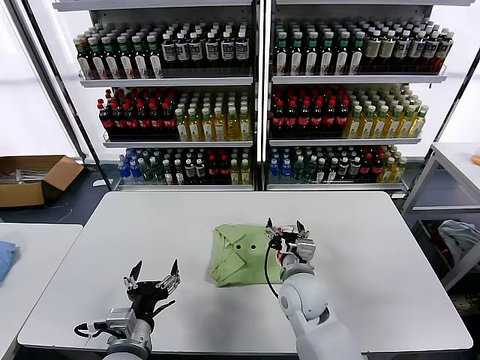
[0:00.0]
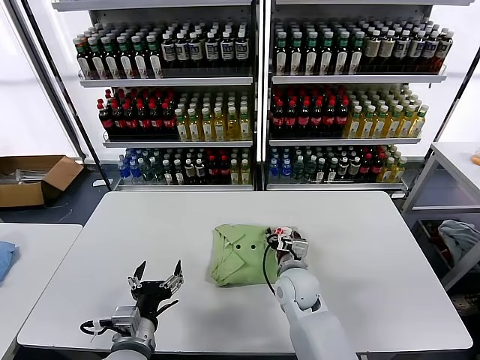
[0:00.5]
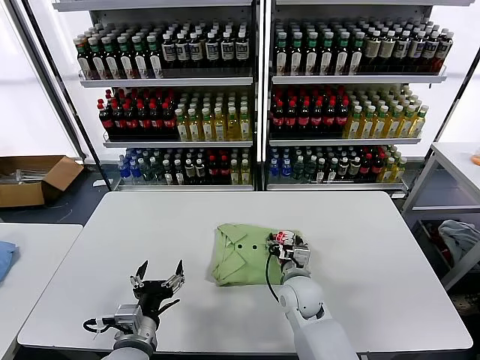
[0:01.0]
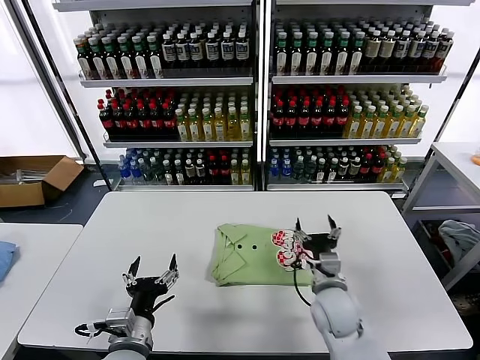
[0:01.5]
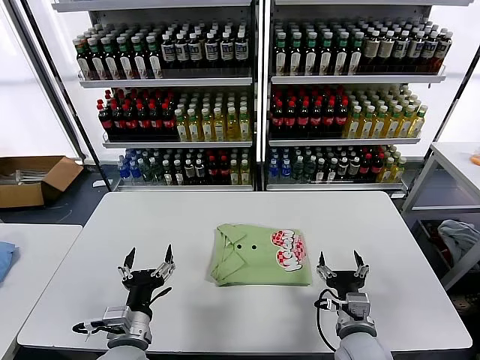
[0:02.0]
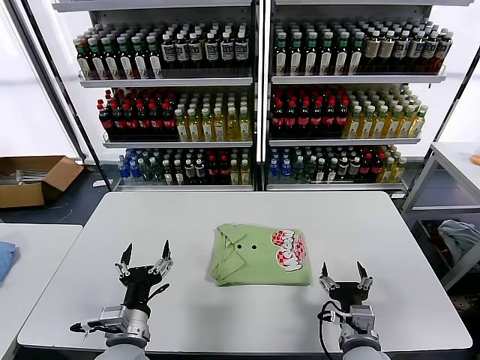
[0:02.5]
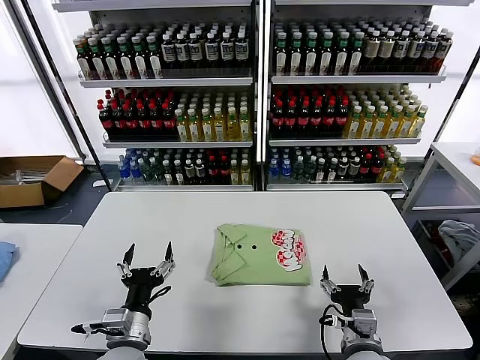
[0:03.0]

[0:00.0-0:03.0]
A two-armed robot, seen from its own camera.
Task of the whole recording: fold and organize the clothes.
0:00.0 to 0:01.5: The right gripper goes about 5 cm to the right.
0:01.5 to 0:03.0: The right gripper is displaced backward by some 15 cm.

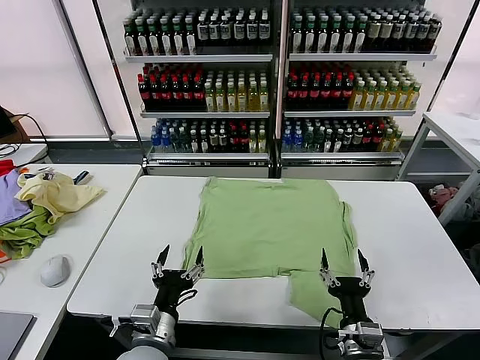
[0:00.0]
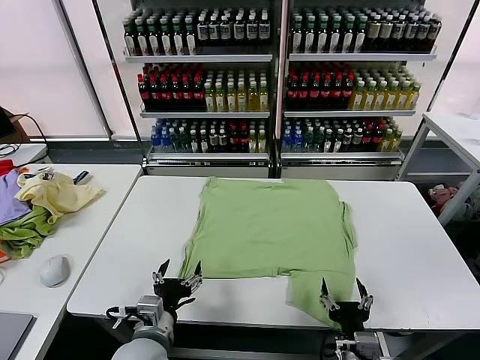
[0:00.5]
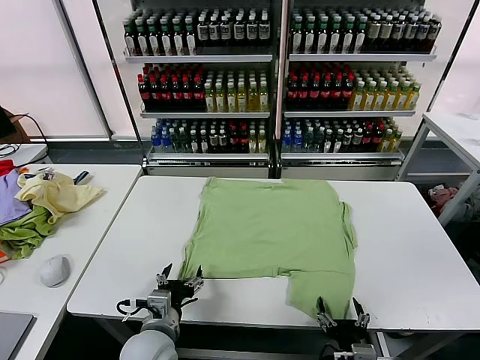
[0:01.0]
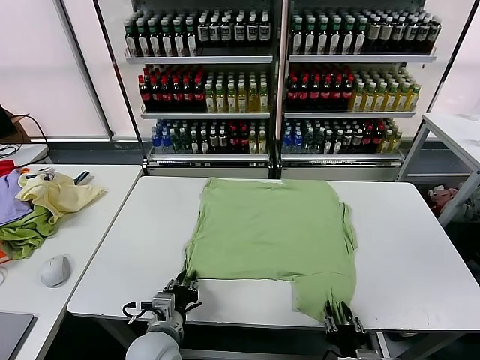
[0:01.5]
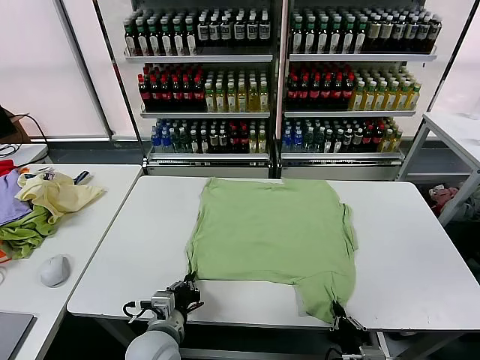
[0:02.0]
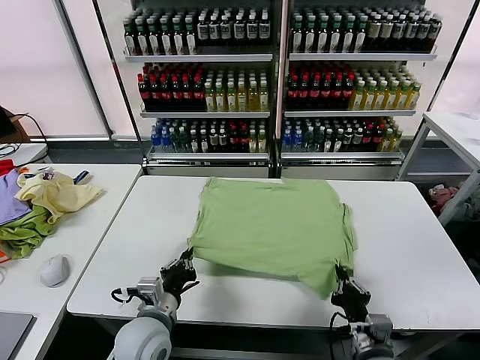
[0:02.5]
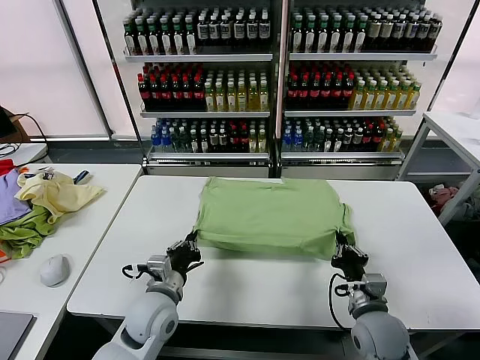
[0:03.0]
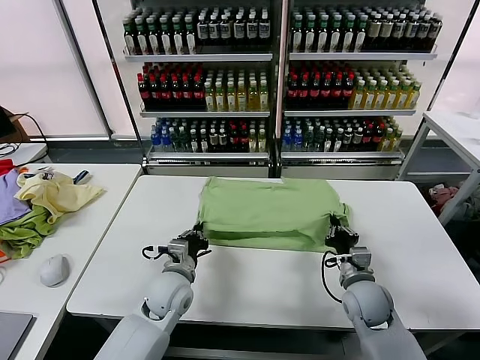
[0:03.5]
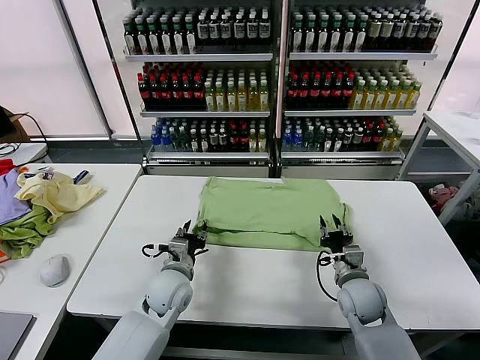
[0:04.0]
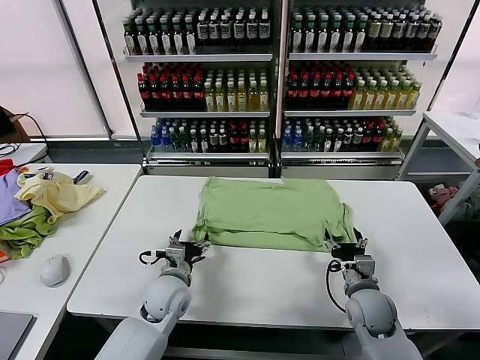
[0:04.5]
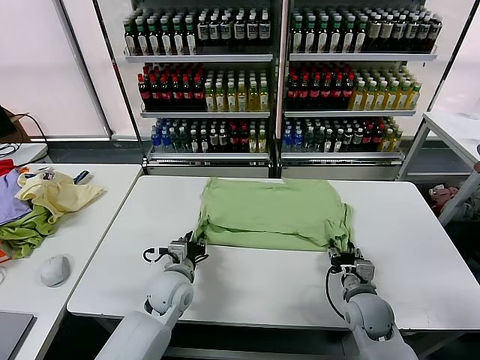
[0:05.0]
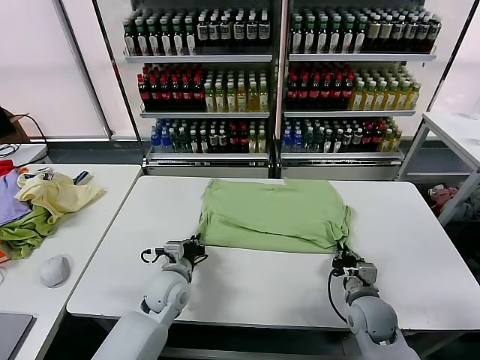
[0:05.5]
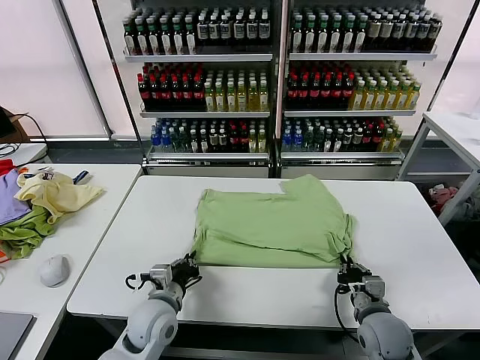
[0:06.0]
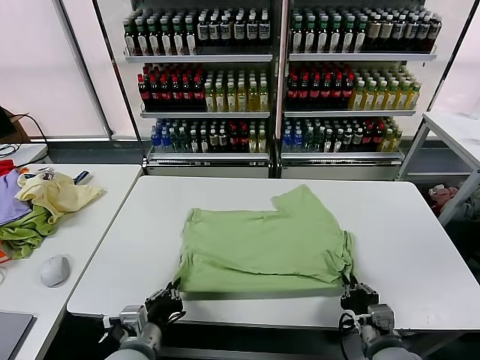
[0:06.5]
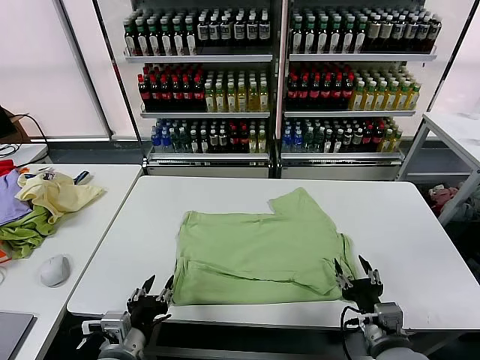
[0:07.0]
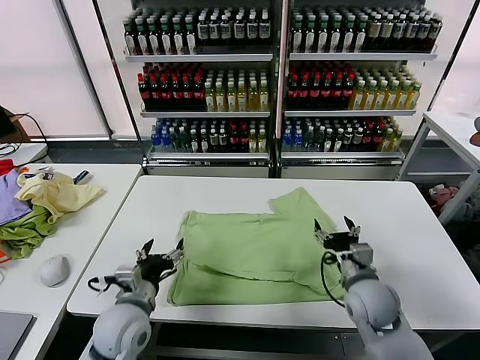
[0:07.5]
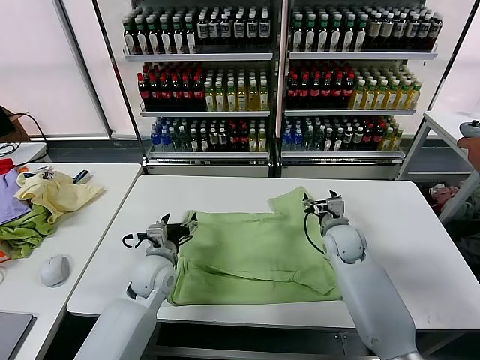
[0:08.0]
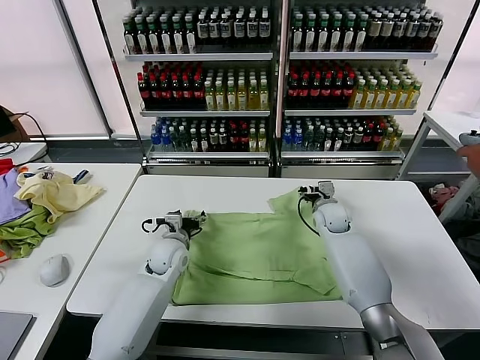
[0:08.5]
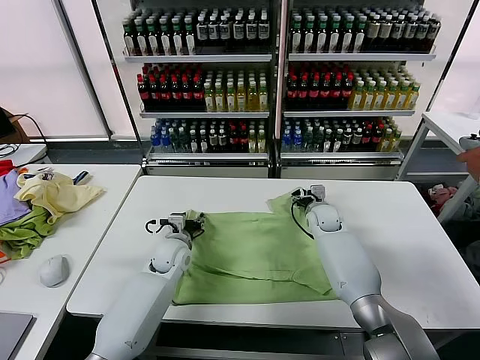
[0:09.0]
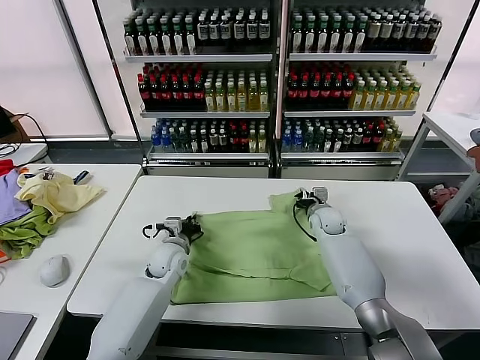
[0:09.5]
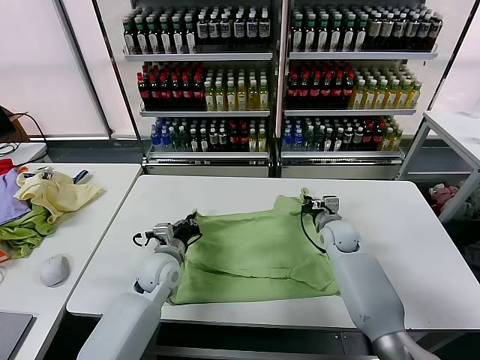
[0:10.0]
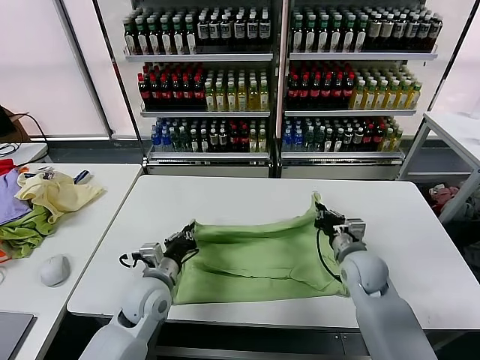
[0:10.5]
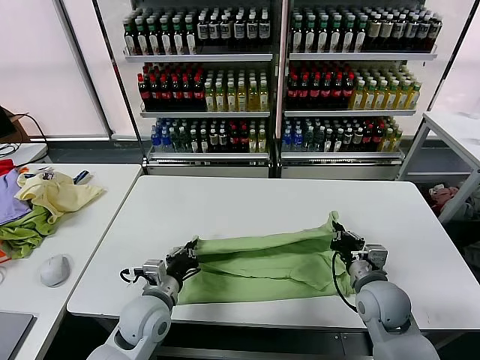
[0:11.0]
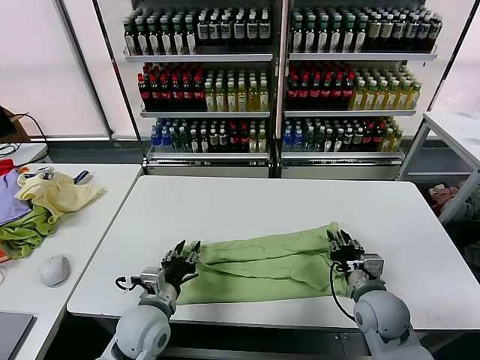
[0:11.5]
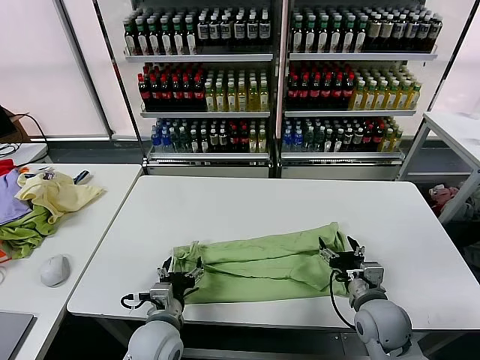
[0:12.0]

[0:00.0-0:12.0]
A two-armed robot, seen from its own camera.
Task of the whole recording: fold and organize the clothes.
Step, 0:00.0 to 0:02.0: use both grippers simultaneously to clamp the lower edge of the clothing fabric.
Step, 0:02.5 to 0:03.5: use both grippers to drag the lower edge of the fabric forward and fold it over the upper edge.
Step, 0:04.0 to 0:06.5: Drag the clothes downward with both gripper.
Step, 0:07.0 to 0:09.5: use both grippers simultaneously to clamp the upper edge of the clothing fabric.
Step, 0:10.0 to 0:11.5: use both grippers to drag the upper edge of the fabric backward and fold it over the lower edge.
0:02.0 to 0:04.0: The right gripper is displaced forward by roughly 20 cm, and opens. Meanwhile the left gripper travels forward by approximately 15 cm, and opens up.
0:04.0 to 0:06.0: Both grippers travel together backward, approximately 10 cm. The left gripper closes. The right gripper closes.
0:06.0 to 0:08.0: The left gripper is displaced forward by roughly 10 cm, and opens its fingers. The right gripper heads forward, covering approximately 25 cm, and opens.
0:08.0 to 0:10.0: The left gripper closes, while the right gripper moves approximately 10 cm forward and comes back, and closes.
0:10.0 to 0:12.0: The two grippers go about 20 cm backward. The left gripper opens. The right gripper opens up.

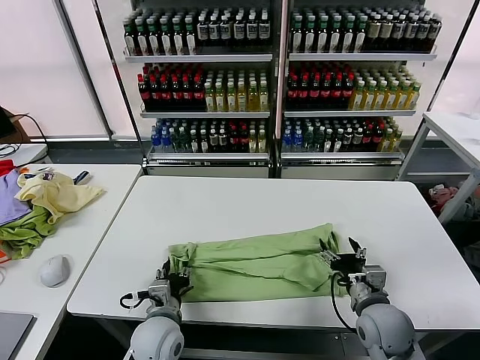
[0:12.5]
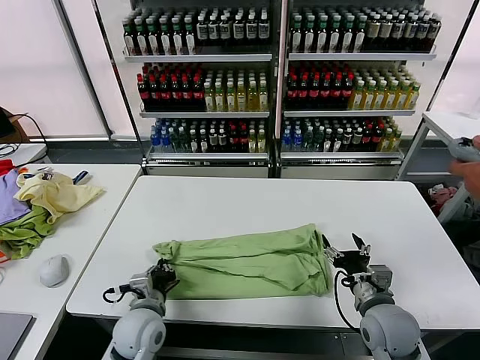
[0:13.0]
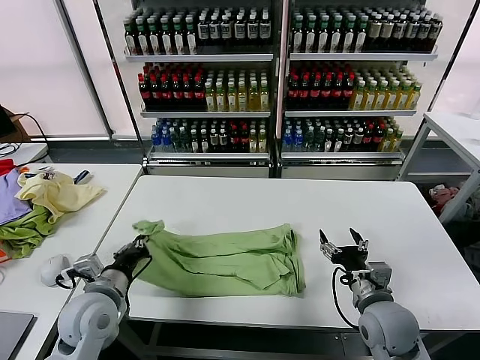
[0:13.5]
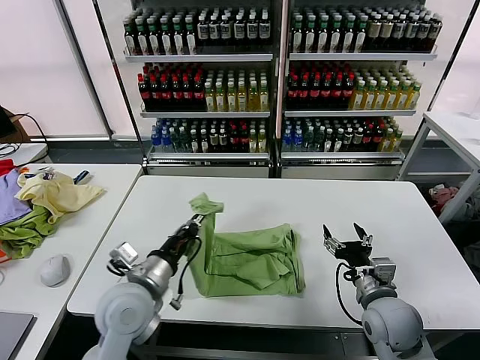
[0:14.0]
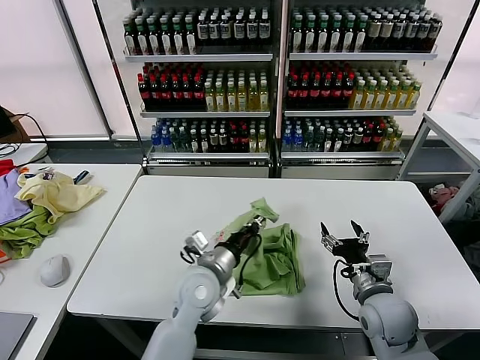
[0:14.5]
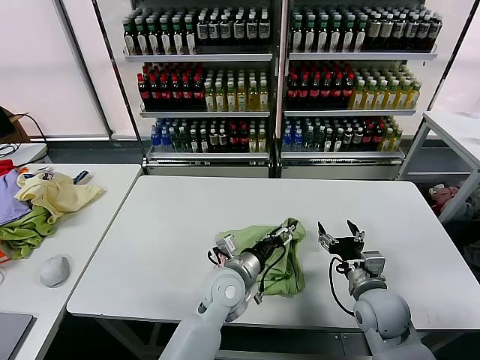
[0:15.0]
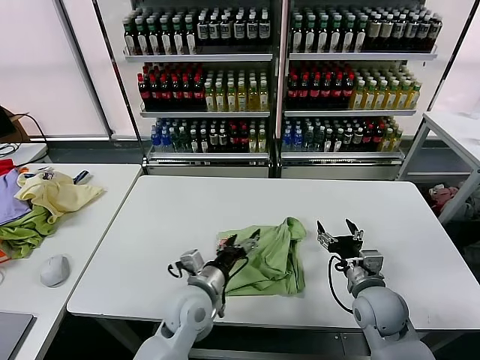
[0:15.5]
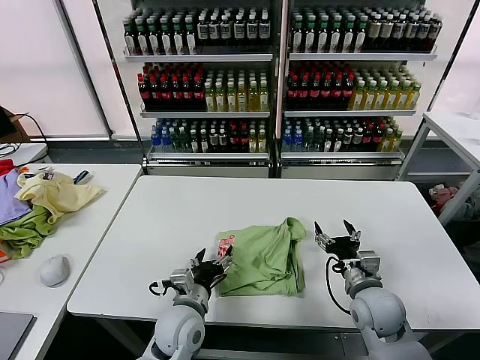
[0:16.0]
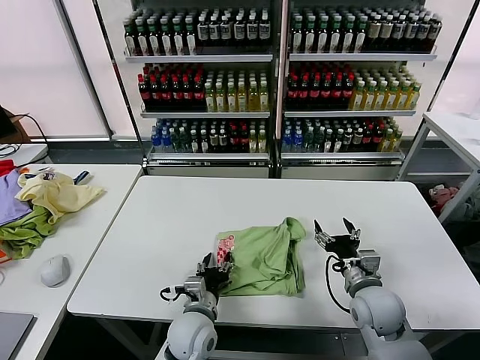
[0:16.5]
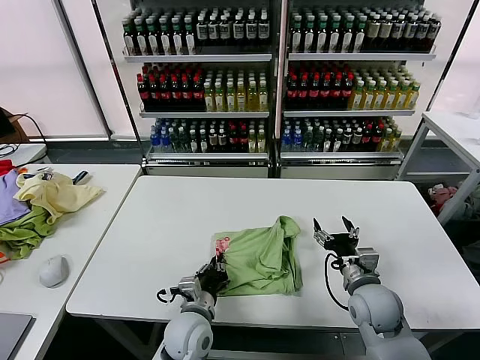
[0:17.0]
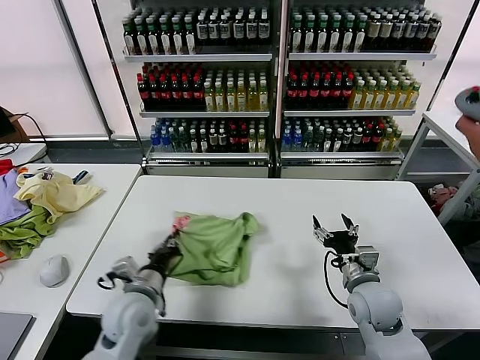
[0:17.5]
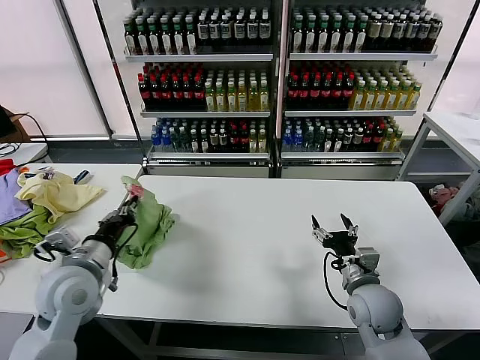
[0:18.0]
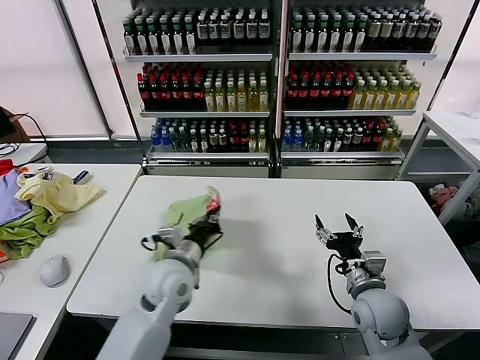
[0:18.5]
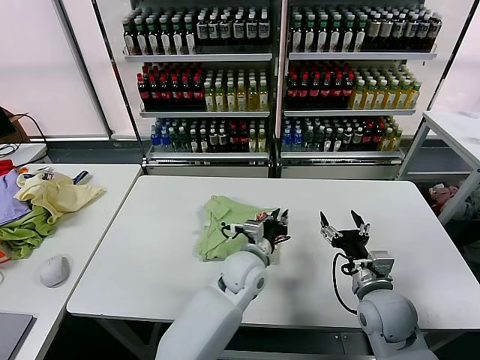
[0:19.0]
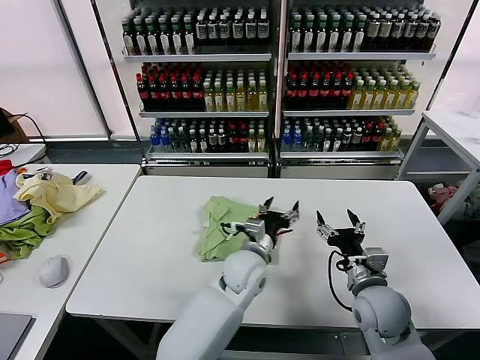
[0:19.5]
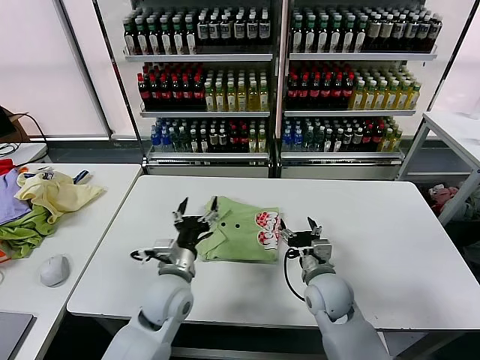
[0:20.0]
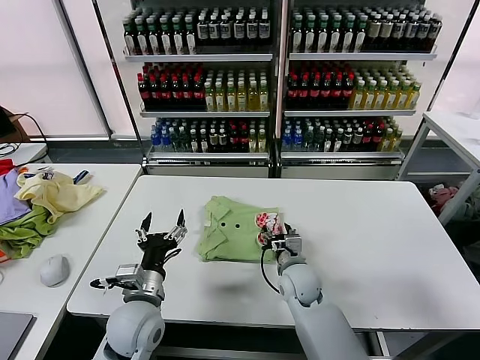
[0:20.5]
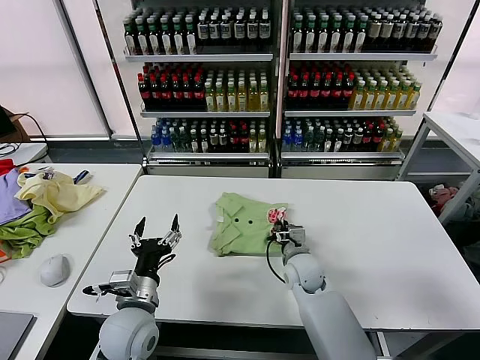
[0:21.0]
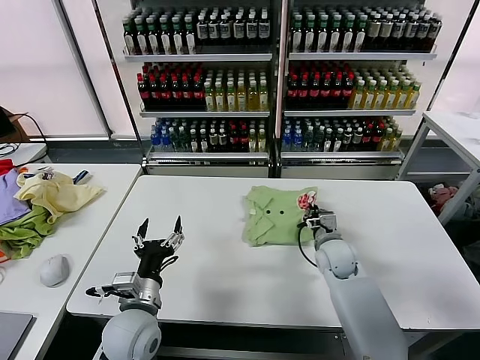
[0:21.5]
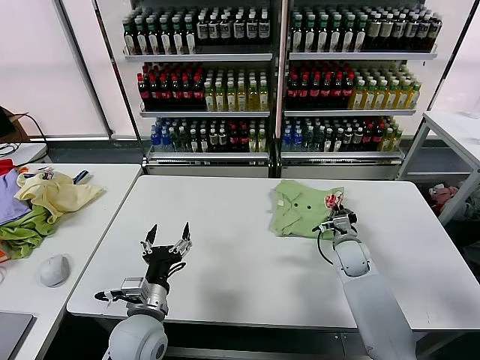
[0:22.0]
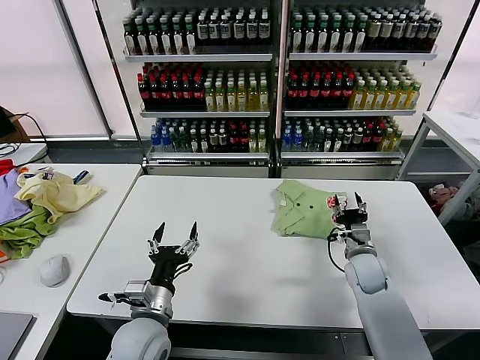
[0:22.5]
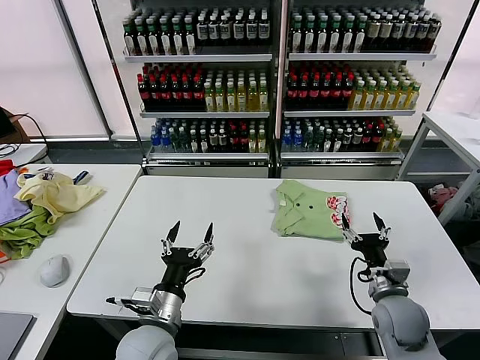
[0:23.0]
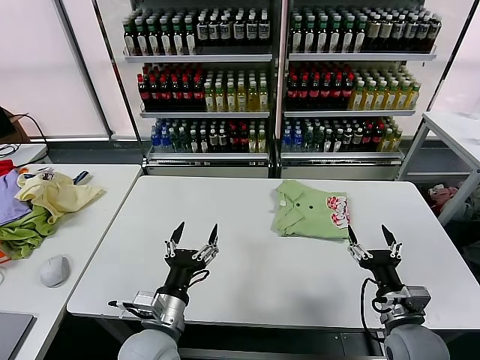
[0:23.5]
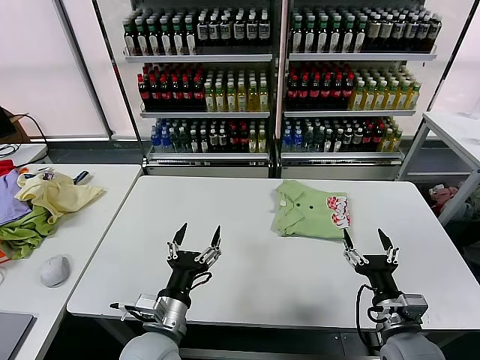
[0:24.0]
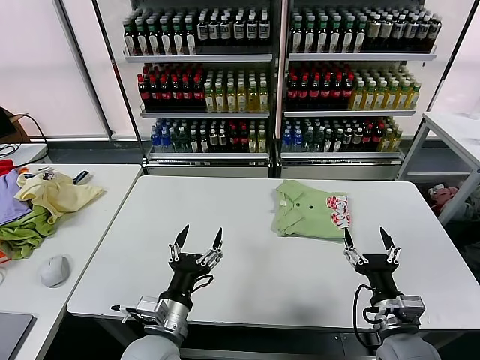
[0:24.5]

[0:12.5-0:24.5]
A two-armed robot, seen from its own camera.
Task of the whole recording: fold and organize the clothes.
Step, 0:13.0 to 0:15.0: use the left gripper to drag the left edge of the fabric to the left and folds it over the right edge.
Step, 0:15.5 to 0:19.0: Flip the folded clothes over with left gripper.
Step, 0:19.5 to 0:22.0: Drag the clothes to the center of the table.
0:12.5 to 0:14.5: The left gripper heads upward, to the right and forward, covering approximately 15 cm, and closes.
0:14.5 to 0:16.5: The left gripper moves downward and backward, approximately 10 cm, and opens its fingers.
0:16.5 to 0:18.5: The left gripper travels upward and forward by roughly 15 cm, travels to the left and back again, approximately 20 cm each way, and closes up.
0:18.5 to 0:20.5: The right gripper travels to the left and forward by approximately 15 cm, while the left gripper shifts roughly 5 cm backward, goes to the right and returns, about 20 cm each way, and opens.
0:20.5 to 0:22.5: The right gripper travels to the right by some 15 cm, and closes, then reopens.
0:22.5 to 0:24.5: The left gripper moves about 5 cm. The right gripper goes roughly 20 cm backward, and opens.
